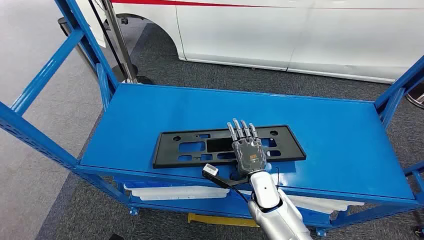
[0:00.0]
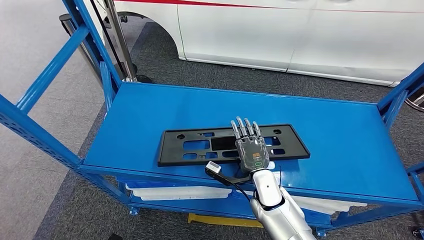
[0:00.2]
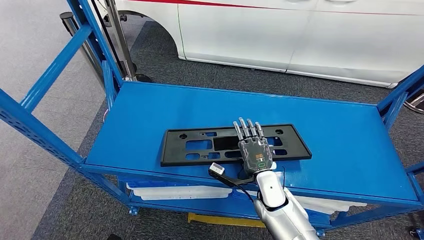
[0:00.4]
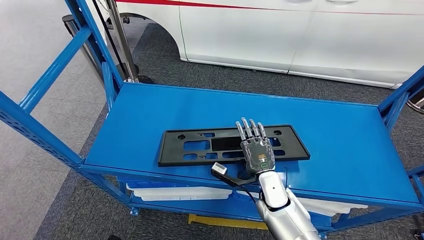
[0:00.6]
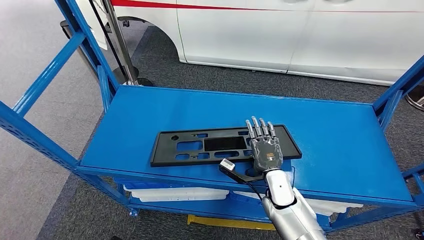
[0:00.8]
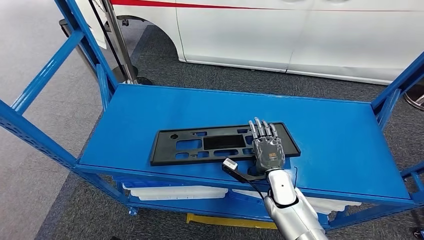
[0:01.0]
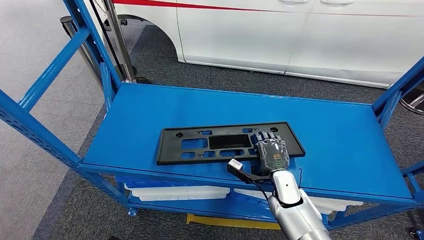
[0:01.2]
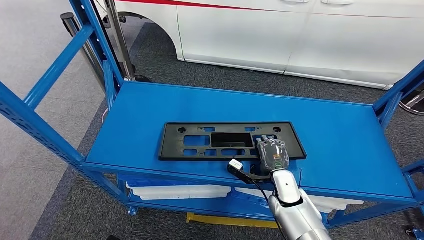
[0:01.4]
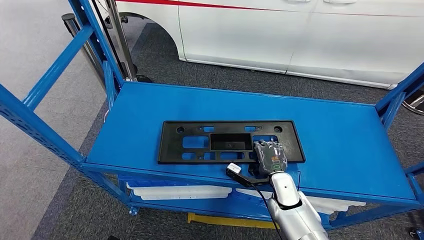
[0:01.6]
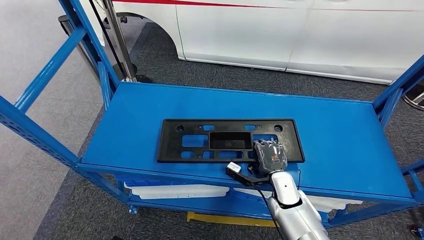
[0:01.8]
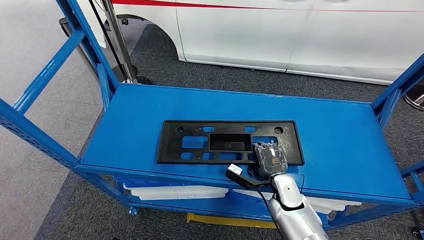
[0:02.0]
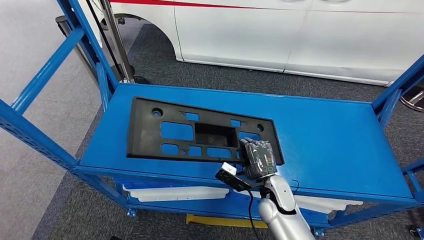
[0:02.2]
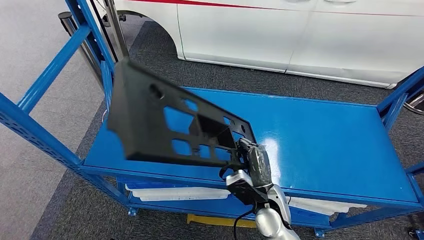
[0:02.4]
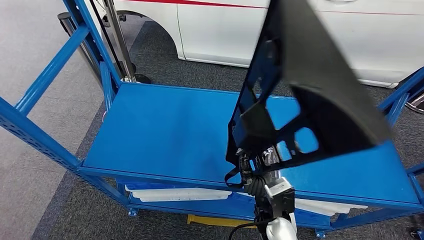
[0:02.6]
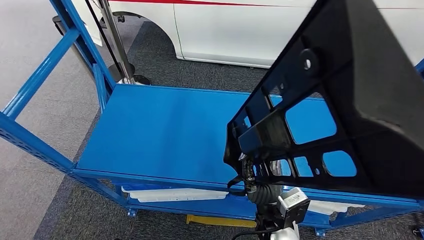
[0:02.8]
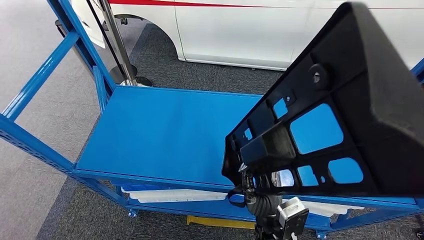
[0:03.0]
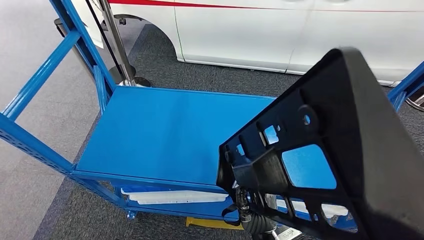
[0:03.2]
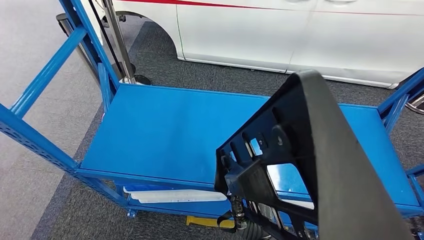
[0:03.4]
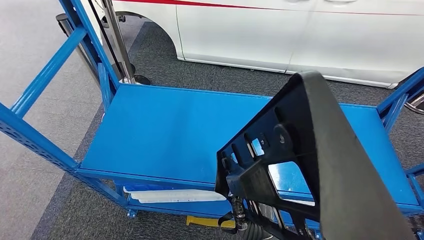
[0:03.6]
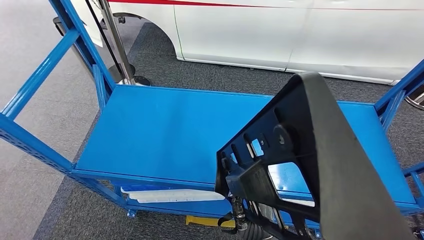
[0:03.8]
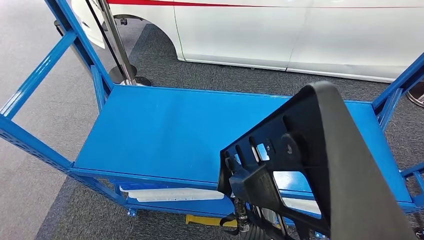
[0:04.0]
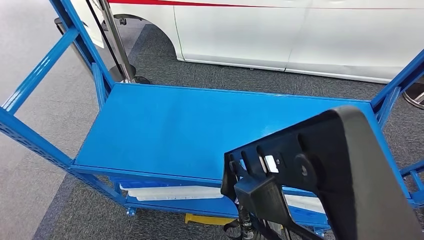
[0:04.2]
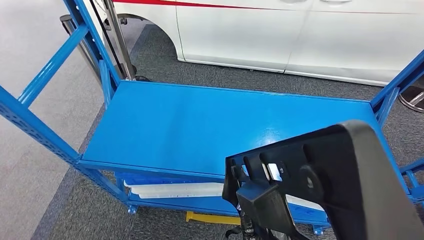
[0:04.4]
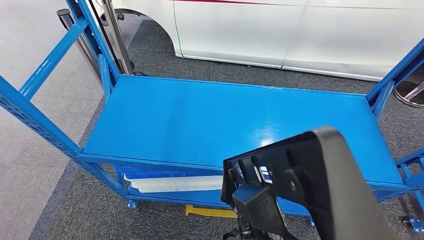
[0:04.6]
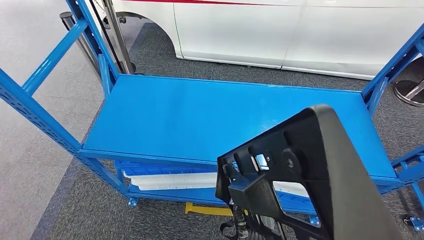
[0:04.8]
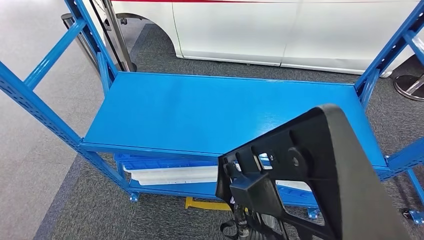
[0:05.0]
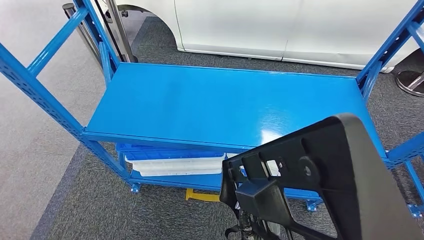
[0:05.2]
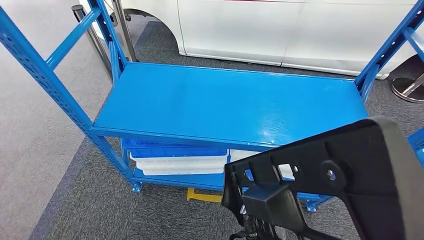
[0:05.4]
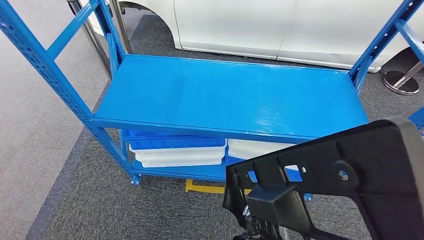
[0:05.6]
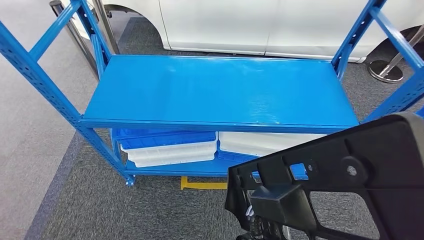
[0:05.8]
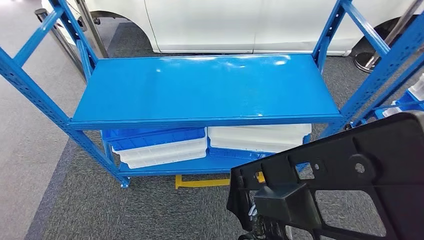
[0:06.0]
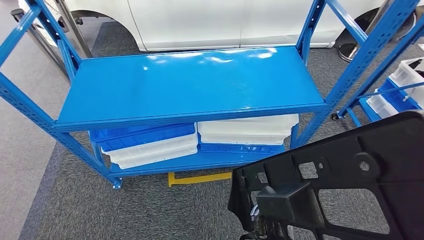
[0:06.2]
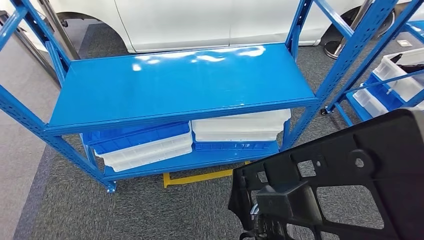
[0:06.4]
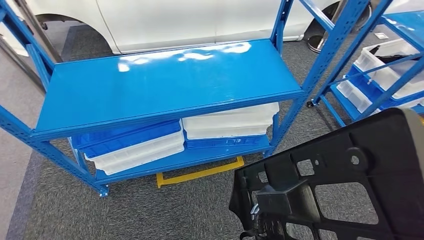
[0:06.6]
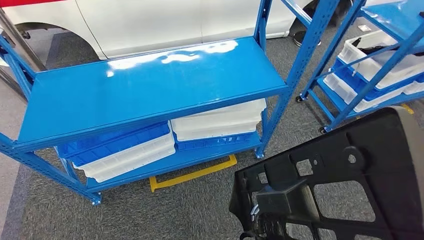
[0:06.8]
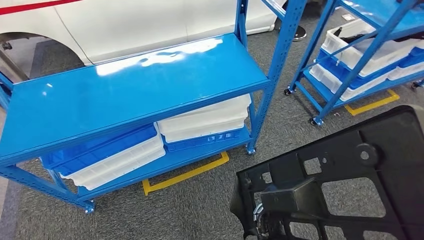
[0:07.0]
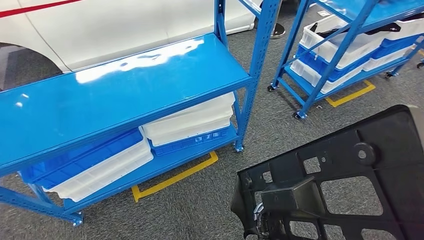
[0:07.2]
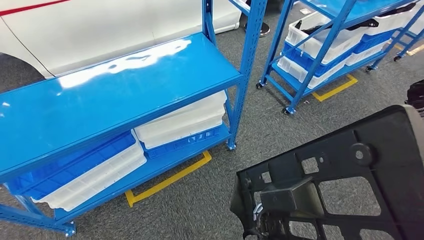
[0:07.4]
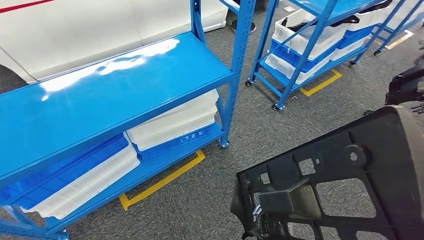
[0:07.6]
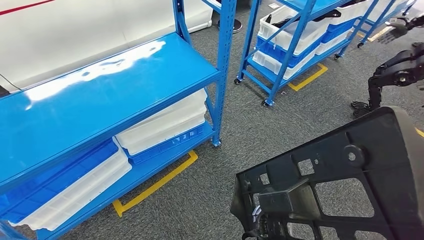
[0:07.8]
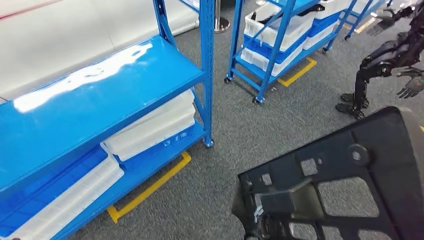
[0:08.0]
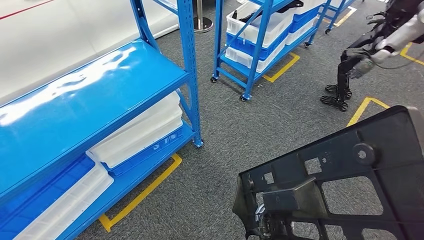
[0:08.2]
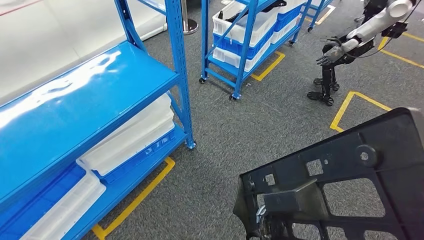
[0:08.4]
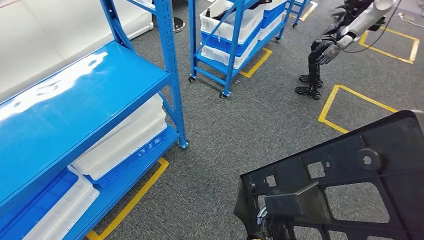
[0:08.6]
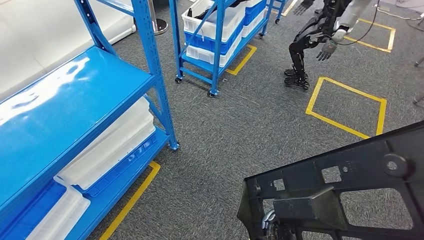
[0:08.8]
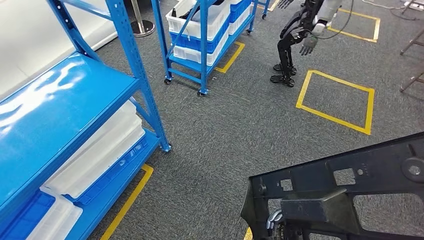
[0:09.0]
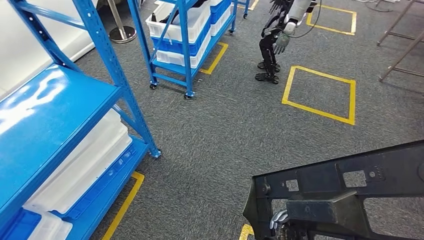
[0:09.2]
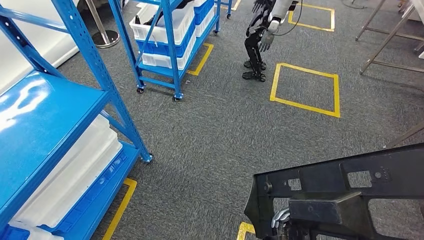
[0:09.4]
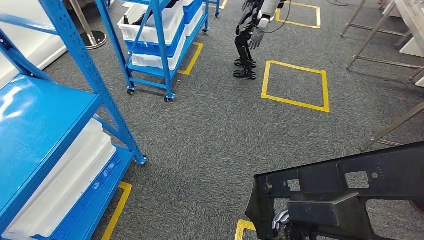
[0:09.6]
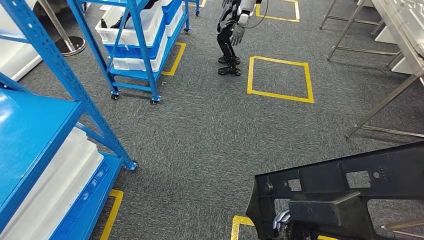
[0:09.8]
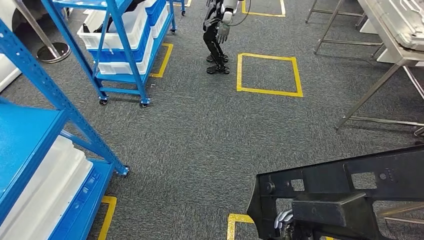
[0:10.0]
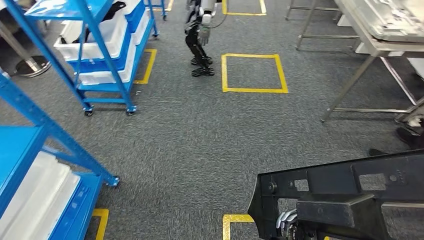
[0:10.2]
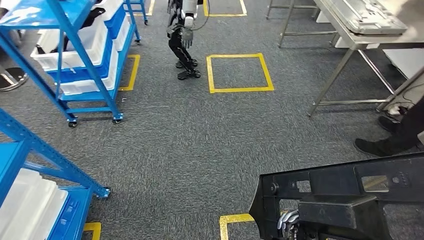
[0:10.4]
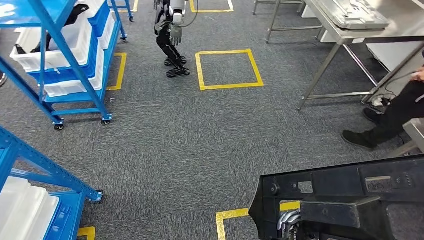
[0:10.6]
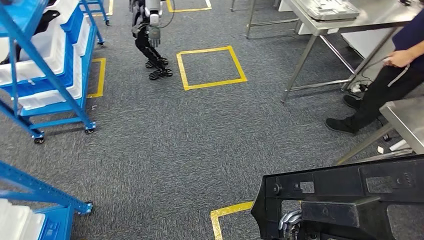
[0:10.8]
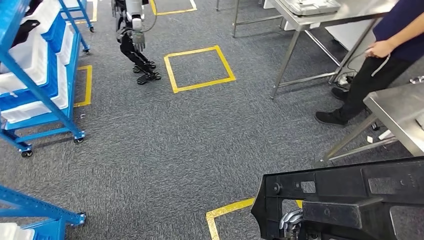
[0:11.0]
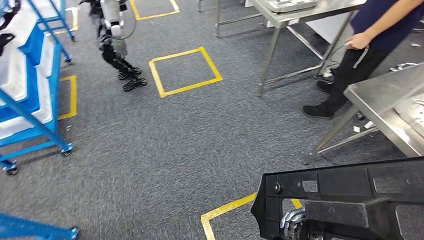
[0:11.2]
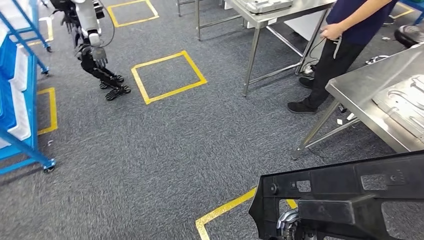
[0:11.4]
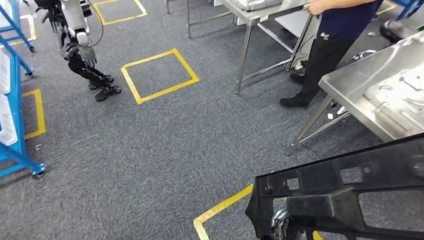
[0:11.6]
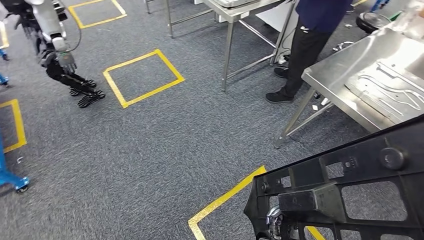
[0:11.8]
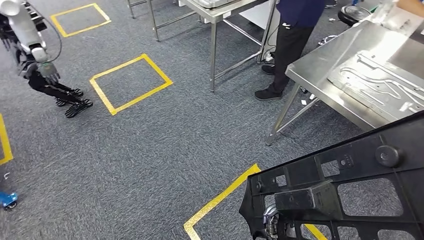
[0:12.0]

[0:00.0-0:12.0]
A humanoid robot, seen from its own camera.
Step, 0:00.0 to 0:04.2: Pick up the large material from the shelf.

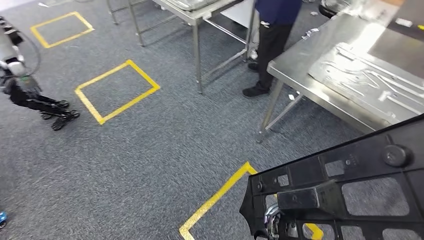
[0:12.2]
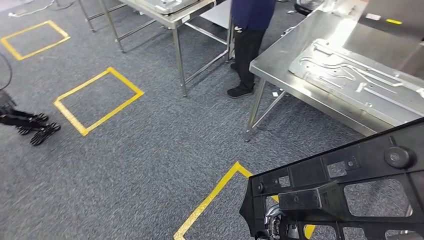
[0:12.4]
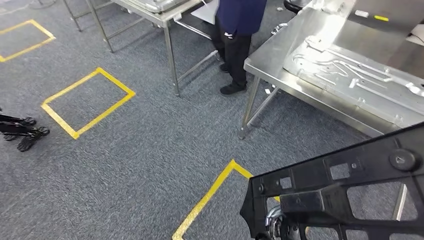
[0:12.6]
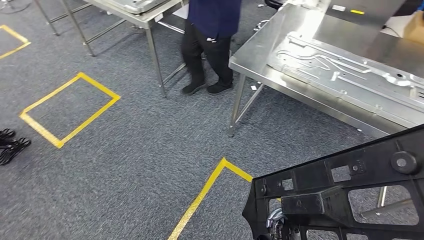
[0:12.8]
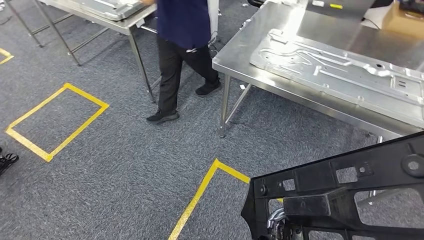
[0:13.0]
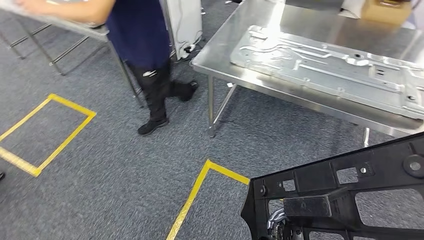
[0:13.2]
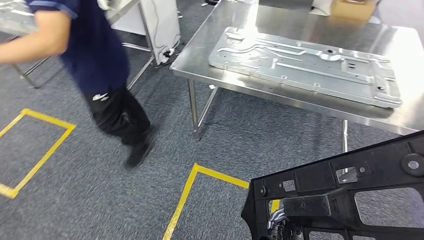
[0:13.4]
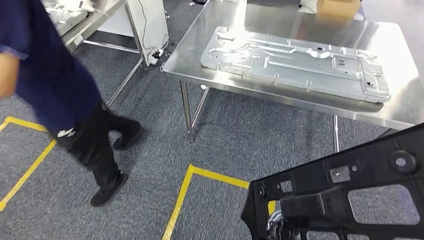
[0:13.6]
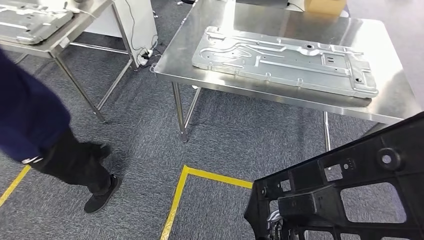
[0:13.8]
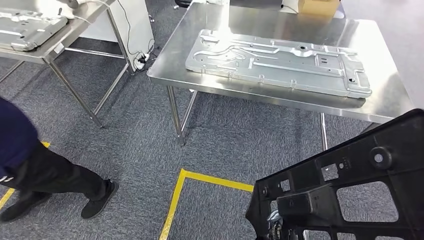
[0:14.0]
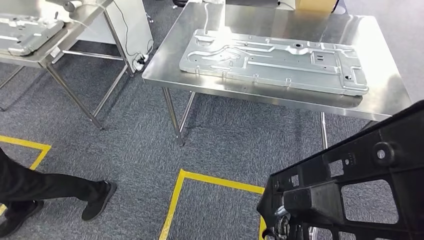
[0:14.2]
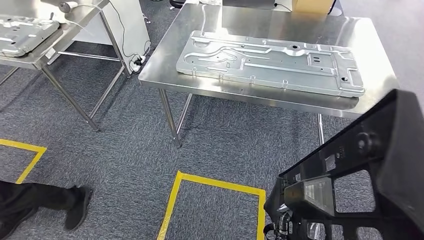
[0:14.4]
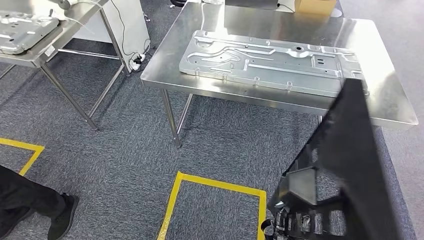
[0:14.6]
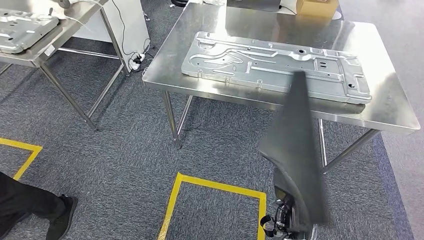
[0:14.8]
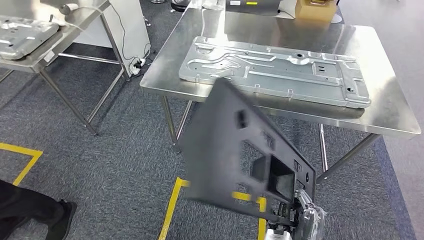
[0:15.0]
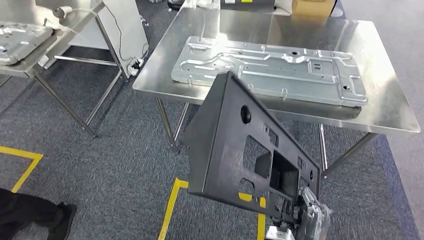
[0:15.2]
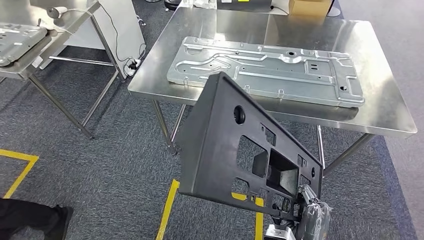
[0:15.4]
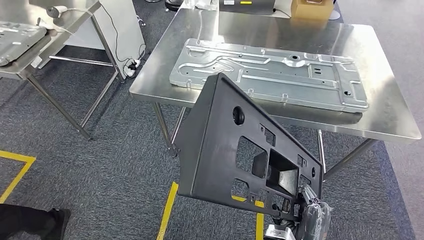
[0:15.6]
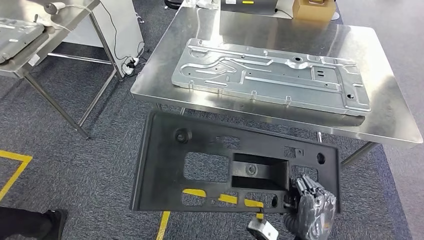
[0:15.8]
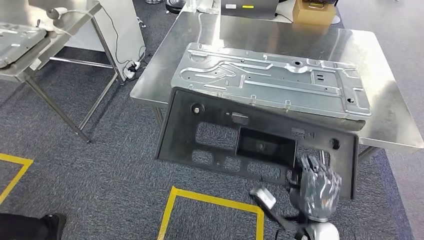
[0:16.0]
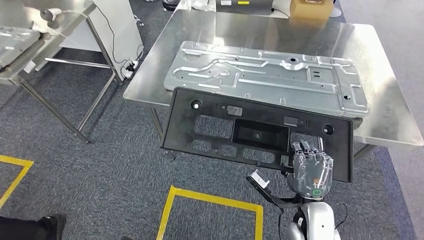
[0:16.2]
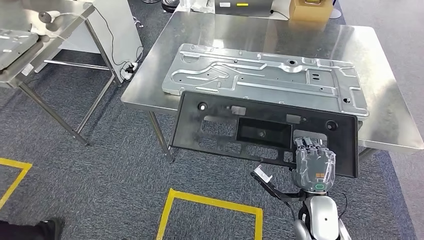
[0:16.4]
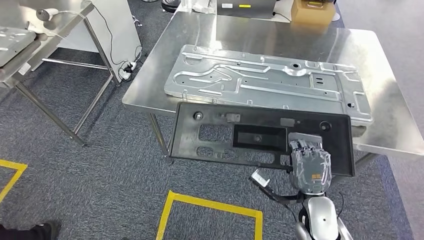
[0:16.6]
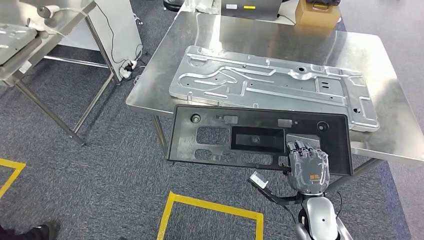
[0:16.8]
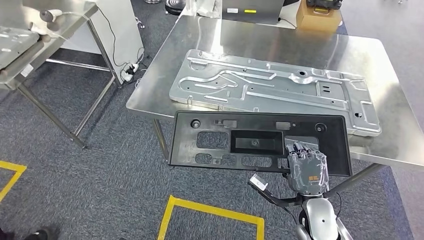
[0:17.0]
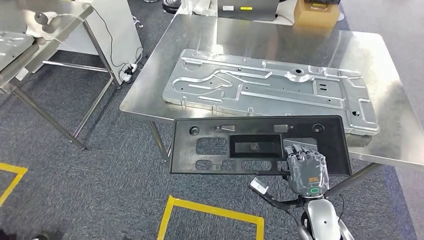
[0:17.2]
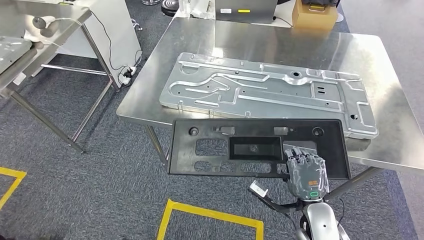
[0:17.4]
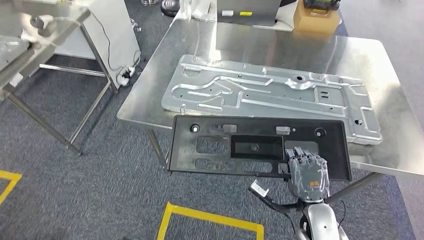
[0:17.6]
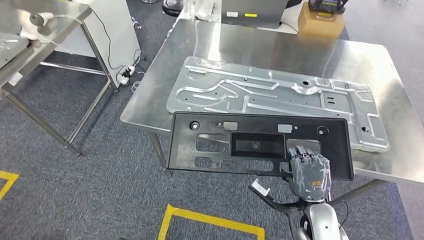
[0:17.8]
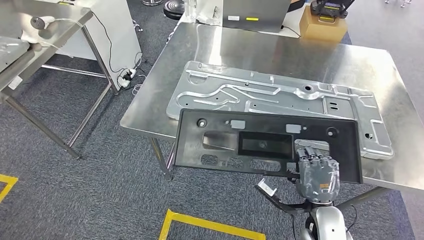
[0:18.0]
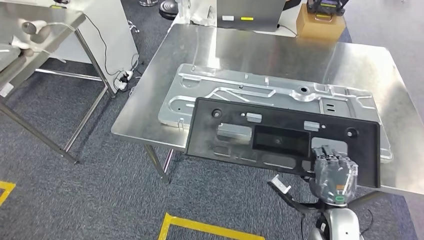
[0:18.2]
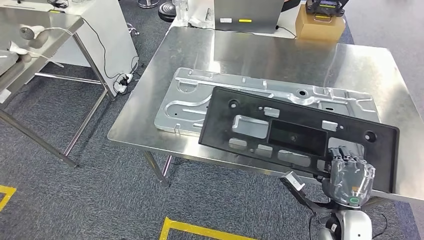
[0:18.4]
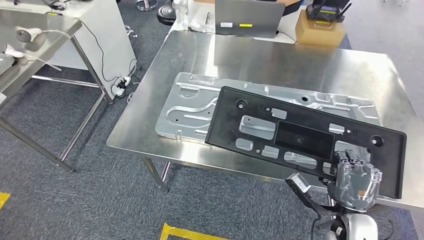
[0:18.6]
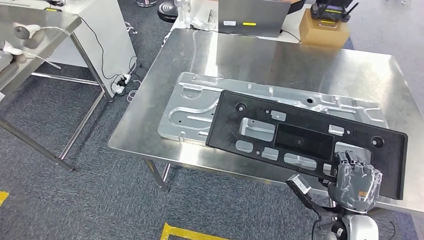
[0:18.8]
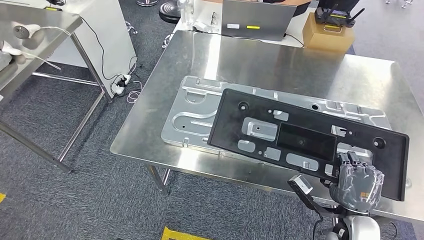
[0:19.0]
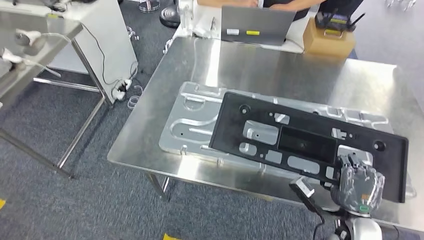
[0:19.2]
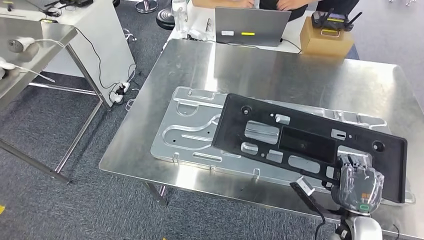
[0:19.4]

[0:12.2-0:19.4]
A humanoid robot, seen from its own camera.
Step, 0:12.2 to 0:16.8: Move the large material to the workbench.
